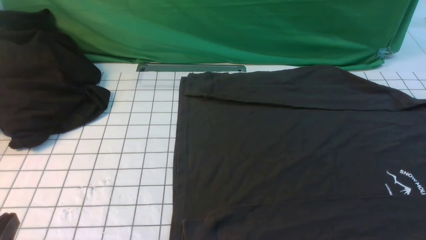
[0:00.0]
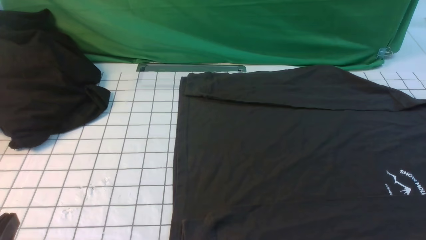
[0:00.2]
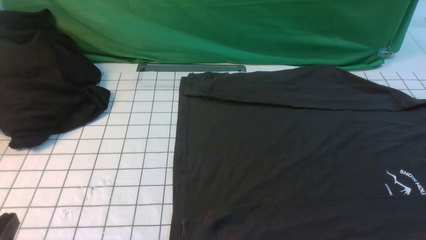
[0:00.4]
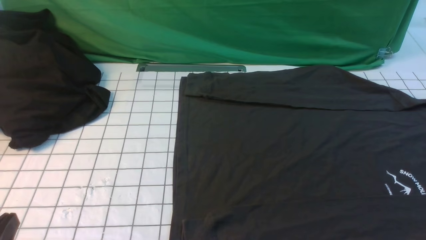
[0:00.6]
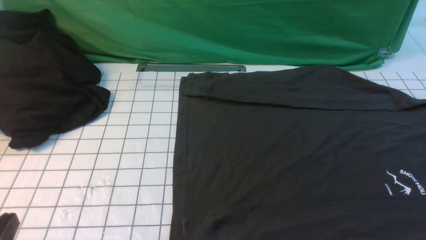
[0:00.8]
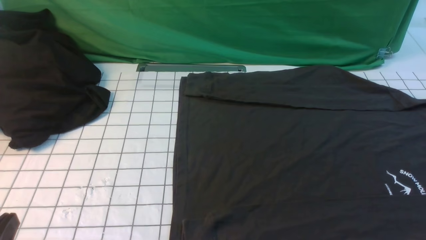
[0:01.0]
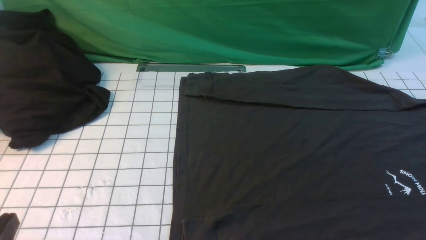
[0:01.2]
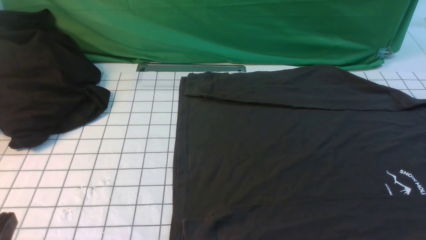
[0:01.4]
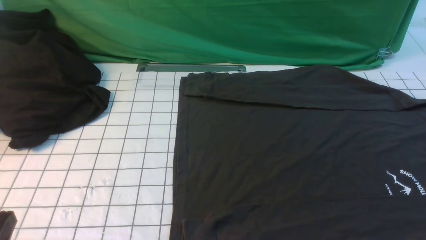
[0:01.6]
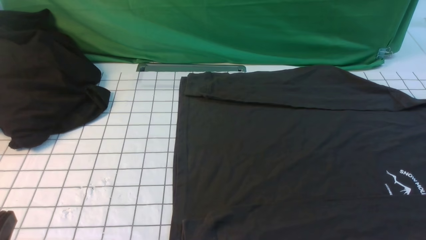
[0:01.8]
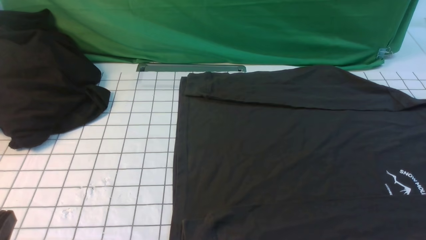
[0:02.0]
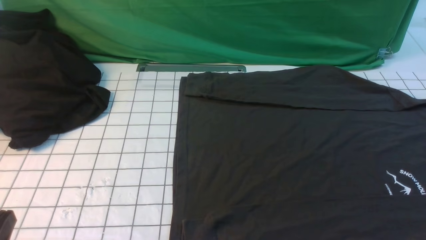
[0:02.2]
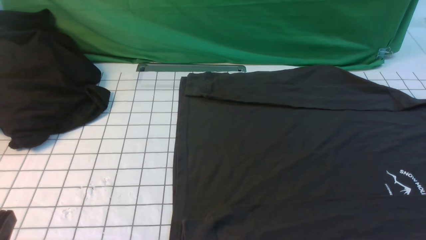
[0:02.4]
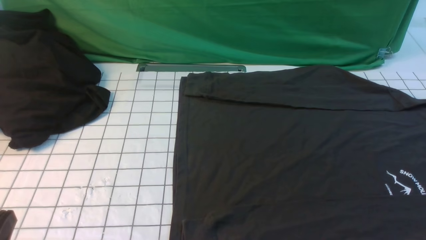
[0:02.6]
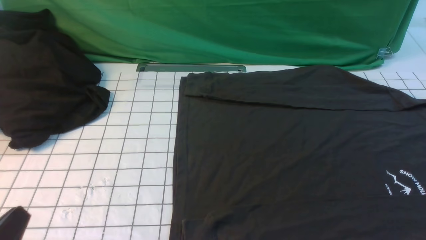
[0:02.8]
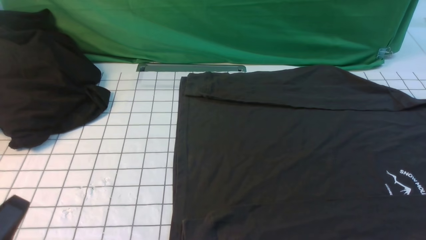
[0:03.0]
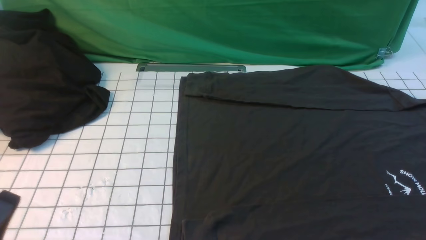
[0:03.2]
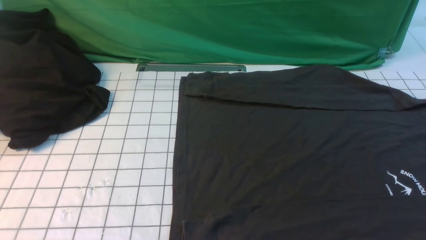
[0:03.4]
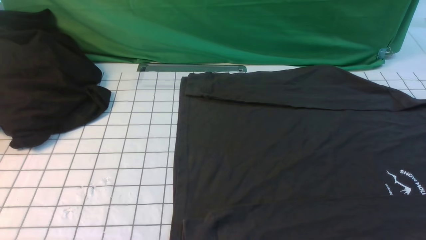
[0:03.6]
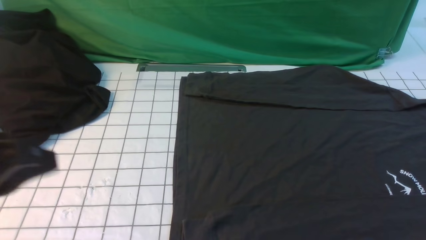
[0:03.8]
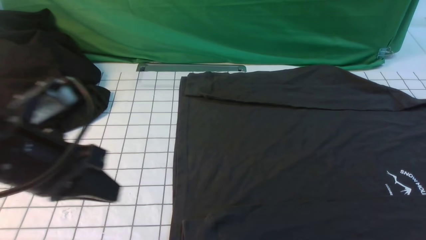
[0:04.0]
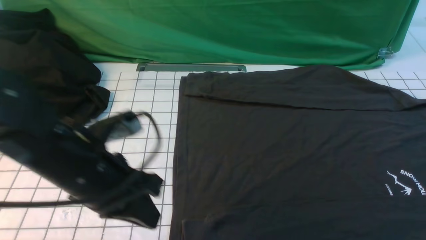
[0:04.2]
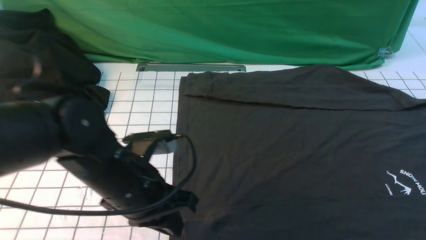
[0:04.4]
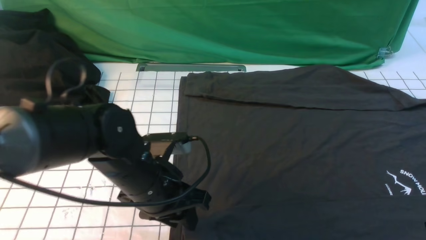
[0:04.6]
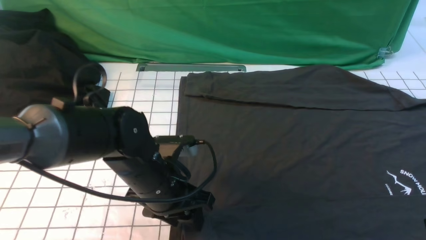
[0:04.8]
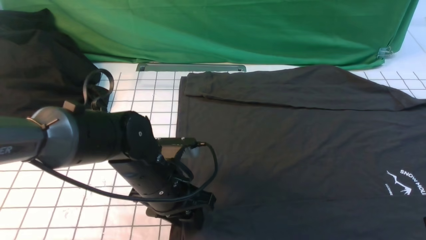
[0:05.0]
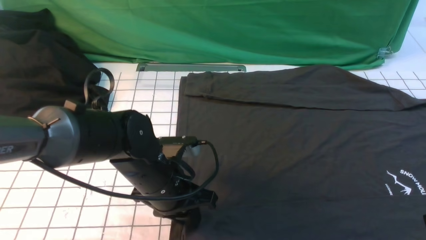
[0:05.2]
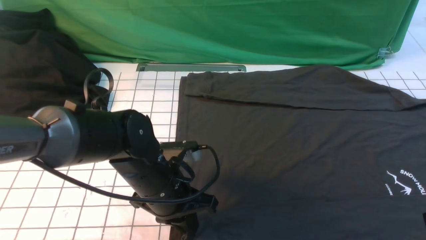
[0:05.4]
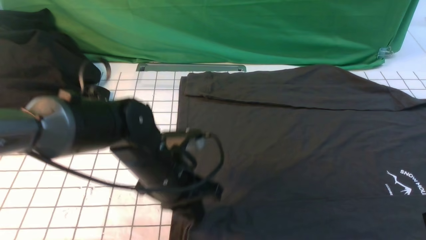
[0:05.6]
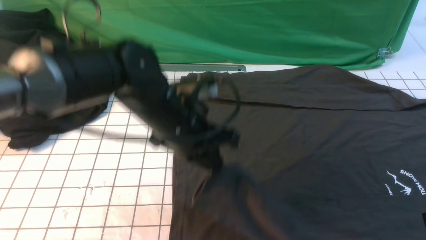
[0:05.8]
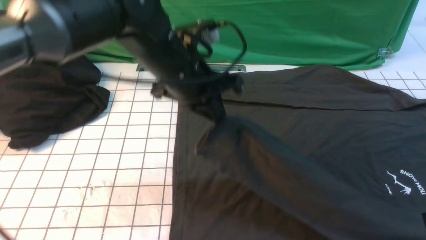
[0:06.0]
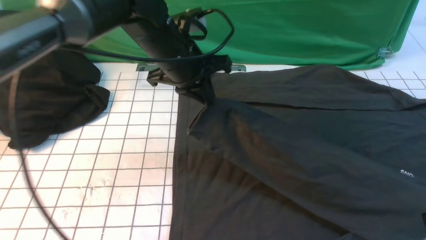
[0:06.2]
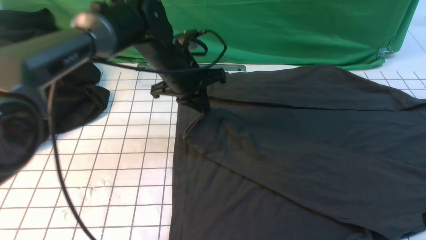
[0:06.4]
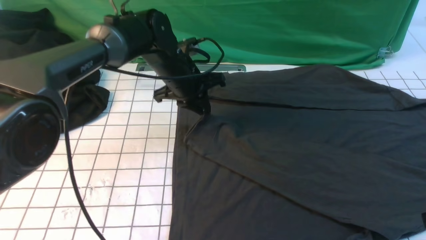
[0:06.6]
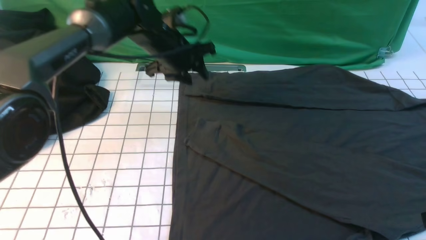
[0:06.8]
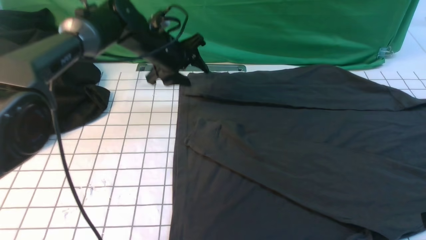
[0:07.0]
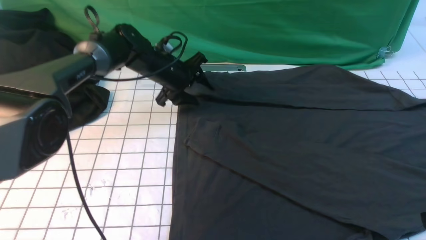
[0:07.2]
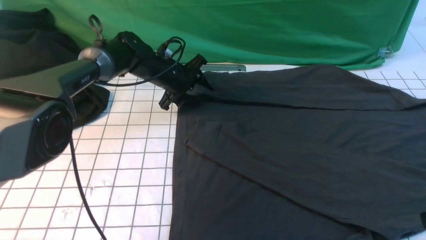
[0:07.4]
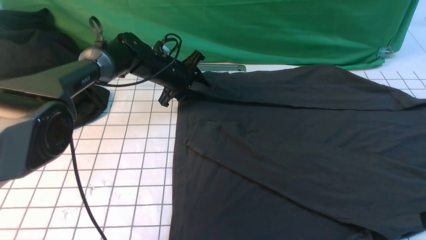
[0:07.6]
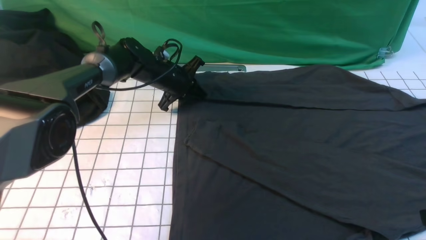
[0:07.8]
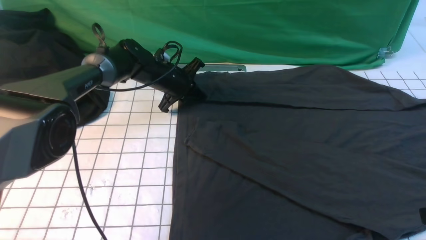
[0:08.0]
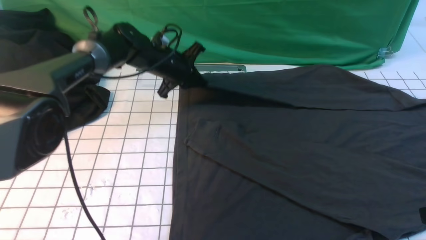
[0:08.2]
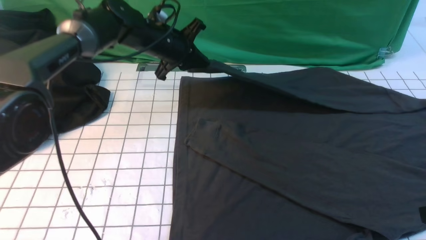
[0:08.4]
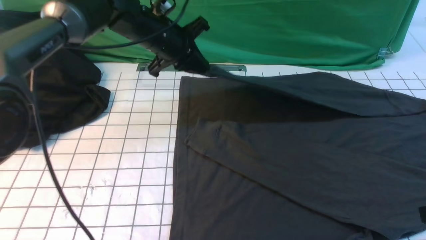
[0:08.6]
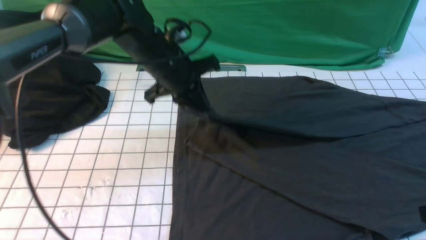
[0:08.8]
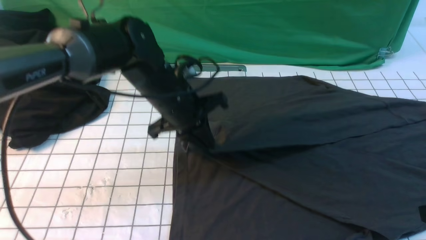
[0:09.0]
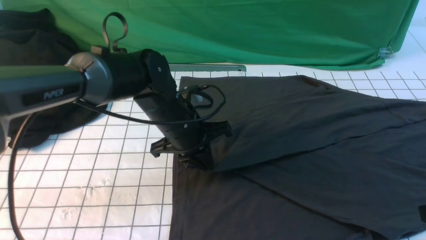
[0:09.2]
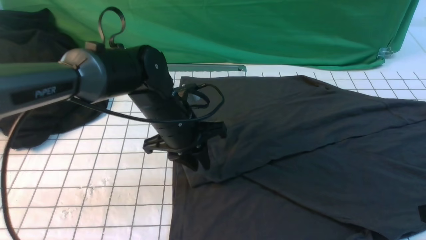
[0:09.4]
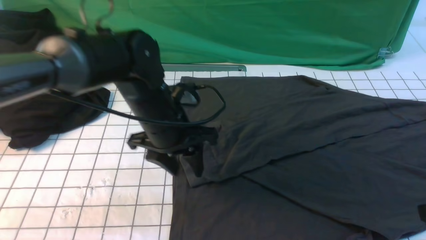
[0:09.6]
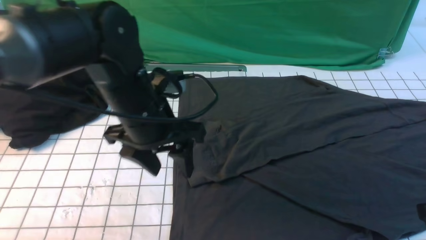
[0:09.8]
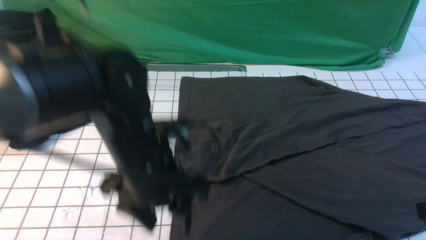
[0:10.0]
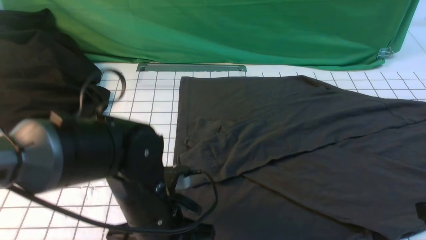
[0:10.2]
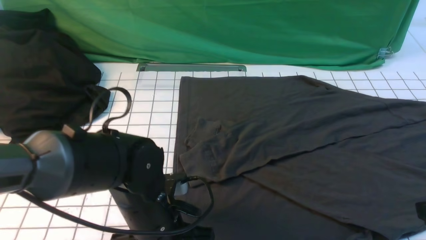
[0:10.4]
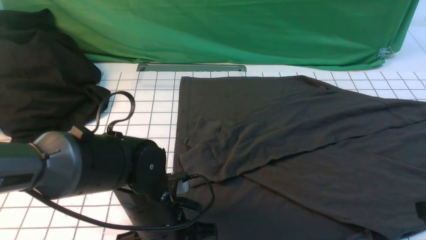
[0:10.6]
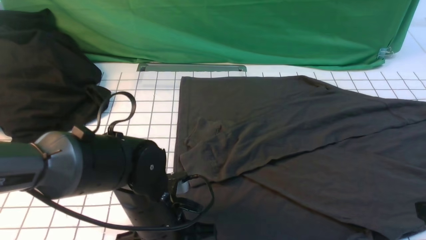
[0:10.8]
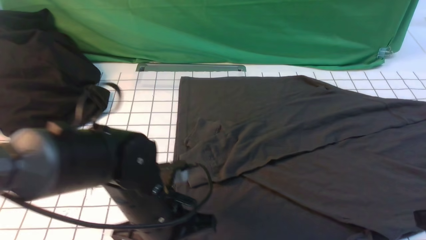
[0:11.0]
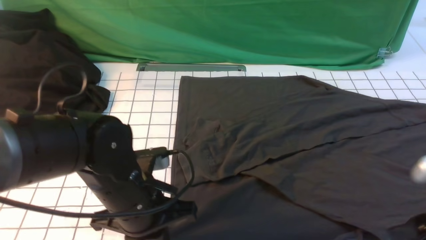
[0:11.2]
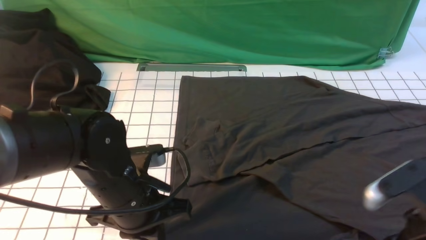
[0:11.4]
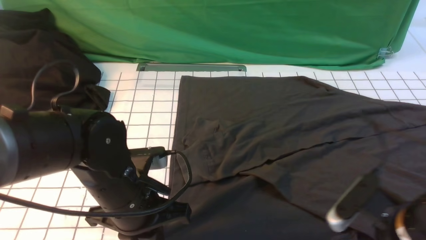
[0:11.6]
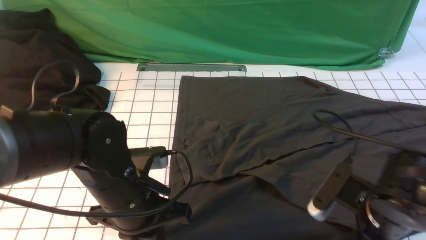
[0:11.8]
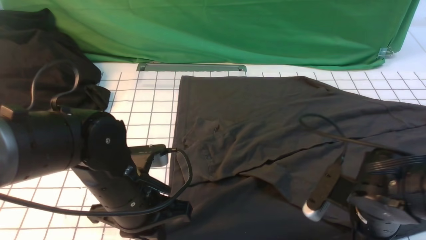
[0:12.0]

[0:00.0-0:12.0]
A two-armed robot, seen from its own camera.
Step, 0:00.0 to 0:05.4: use the left arm to clamp the cuff closest to it.
Step, 0:05.8 to 0:06.6: use the left arm to drag and place the cuff at the centered position on the left edge of the fabric.
Step, 0:06.8 to 0:08.0: use the left arm to clamp the cuff farthest from it.
Step, 0:08.2 to 0:09.4: use the left arm to drag and drop the cuff onto the cuff closest to the left arm.
0:00.0 to 0:01.6: Both grippers stay about where they are.
0:03.0 to 0:04.4: The left gripper travels forward and to the right by approximately 25 cm; the right gripper is displaced forward and upward by about 10 cm, and closes up.
0:04.4 to 0:06.0: The left gripper shifts roughly 15 cm forward, upward and to the right, and opens, then closes again.
0:06.0 to 0:07.6: The left gripper heads forward and downward, covering about 20 cm, and opens its fingers.
0:07.6 to 0:09.0: The left gripper moves backward and upward, approximately 15 cm, and closes up.
0:09.0 to 0:10.4: The left gripper shifts about 15 cm backward, and opens up.
0:10.4 to 0:12.0: The right gripper travels downward, to the left and forward by about 15 cm, and opens. Meanwhile the left gripper closes up.

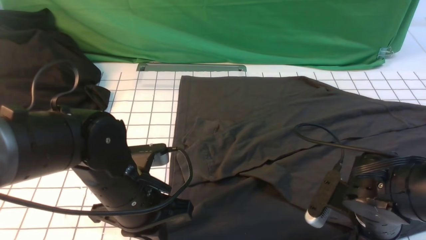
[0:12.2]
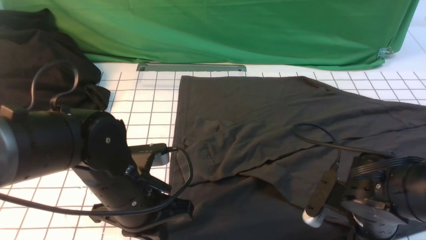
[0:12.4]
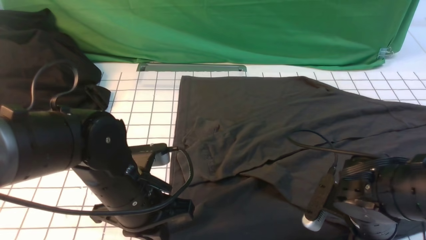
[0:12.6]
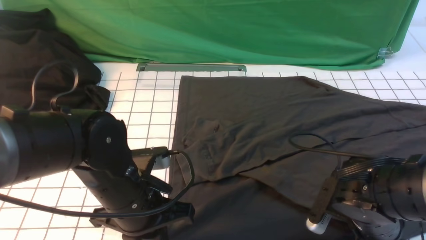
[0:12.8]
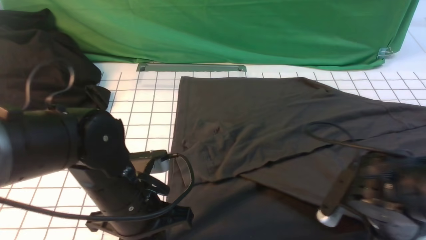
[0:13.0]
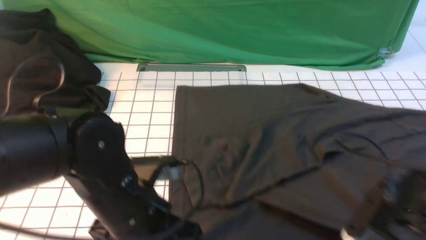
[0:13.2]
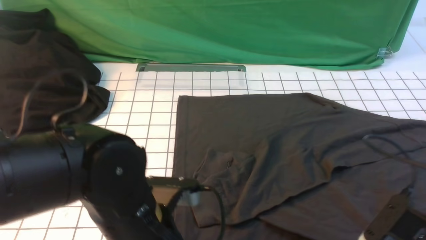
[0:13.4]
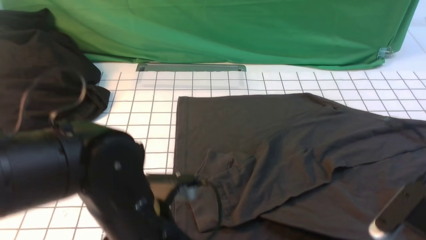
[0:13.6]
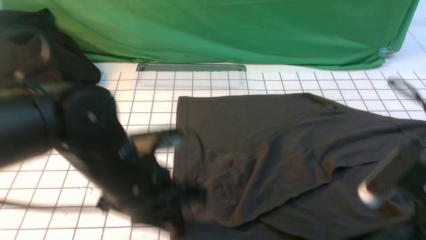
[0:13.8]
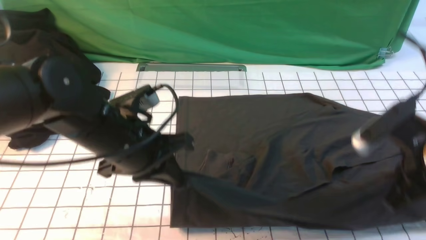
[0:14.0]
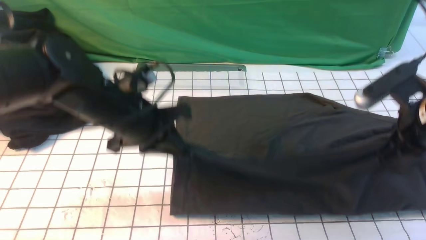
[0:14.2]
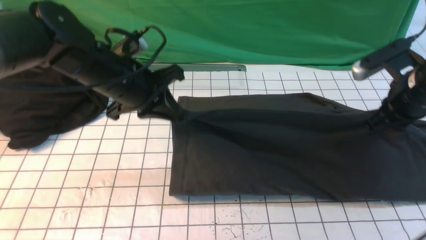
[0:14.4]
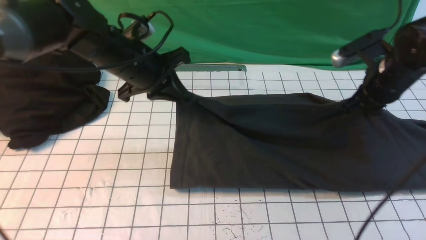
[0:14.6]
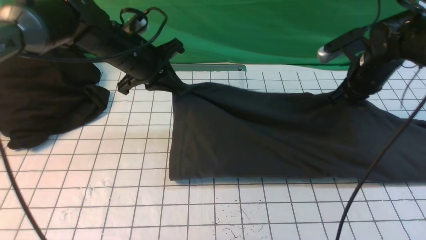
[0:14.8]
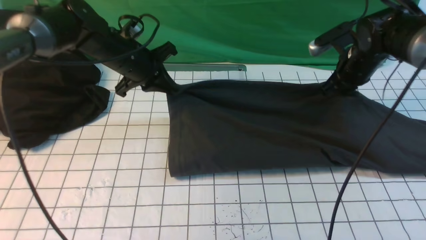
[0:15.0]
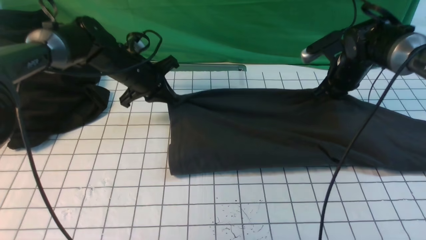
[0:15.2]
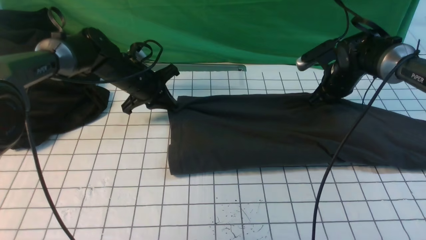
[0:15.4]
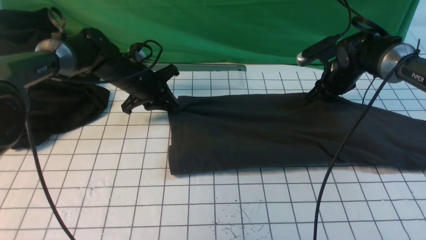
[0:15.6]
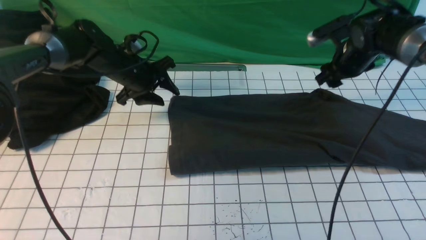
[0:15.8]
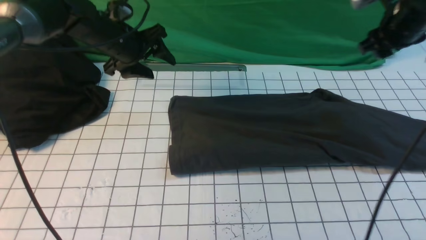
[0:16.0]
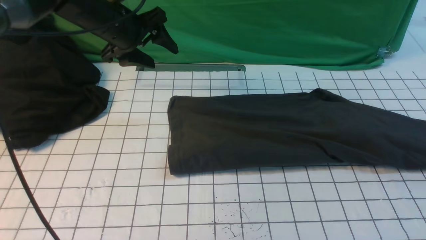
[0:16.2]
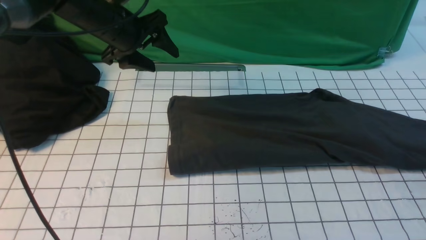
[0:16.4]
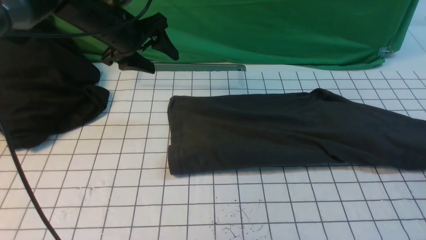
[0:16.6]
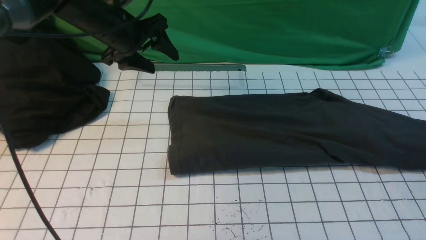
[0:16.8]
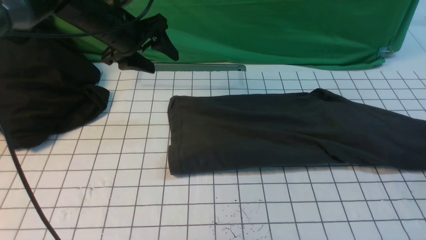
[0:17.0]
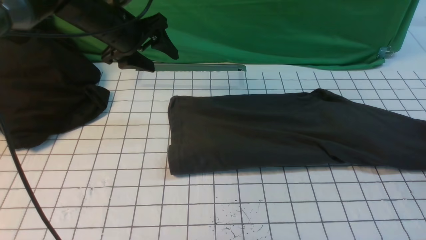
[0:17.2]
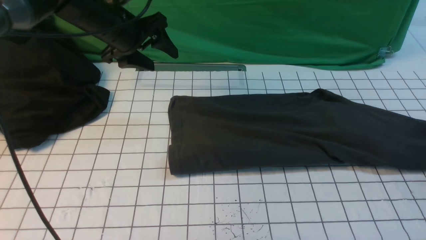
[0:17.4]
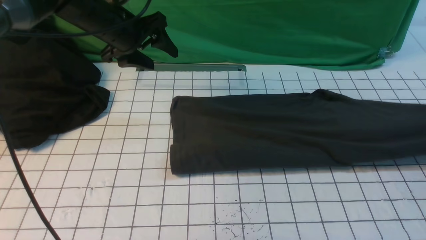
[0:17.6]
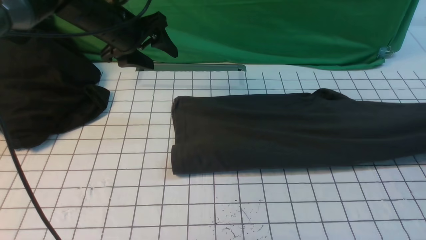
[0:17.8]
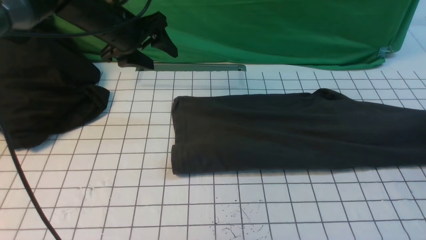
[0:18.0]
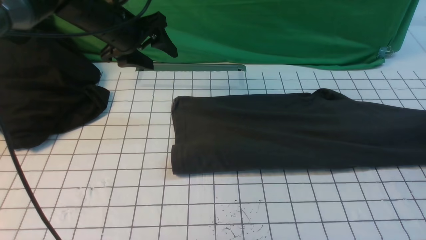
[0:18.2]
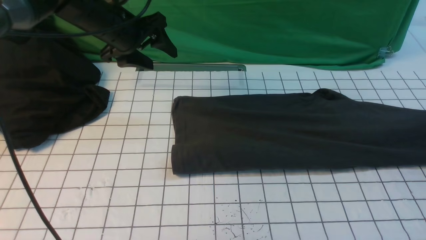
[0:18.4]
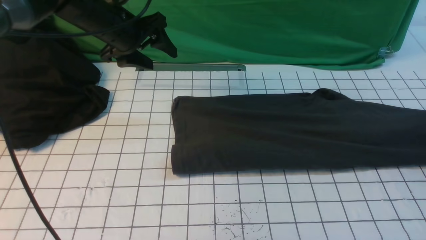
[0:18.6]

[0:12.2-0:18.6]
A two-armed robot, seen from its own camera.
Step, 0:13.2 to 0:16.0: use both arms to drag the lower edge of the fabric forward and fold it over the upper edge.
0:12.2 to 0:13.8: The left gripper changes place by about 5 cm; the right gripper goes approximately 10 cm upward, and closes up.
0:13.8 to 0:15.4: Both grippers move forward, approximately 30 cm.
0:15.4 to 0:17.0: The right gripper goes some 30 cm to the right, while the left gripper shifts some 10 cm upward, and opens.
0:17.0 to 0:18.6: The right gripper opens its fingers.
